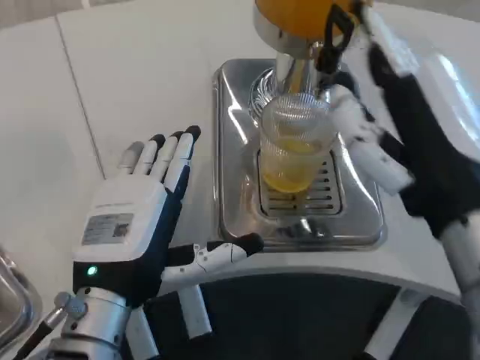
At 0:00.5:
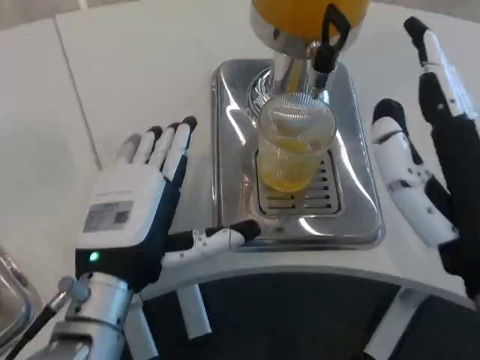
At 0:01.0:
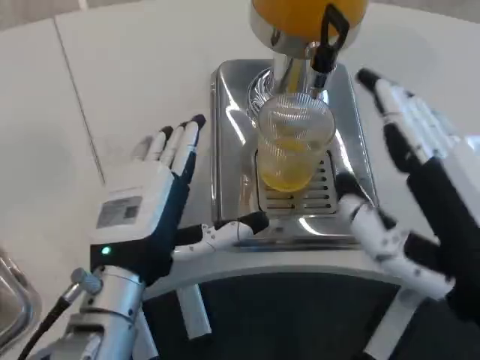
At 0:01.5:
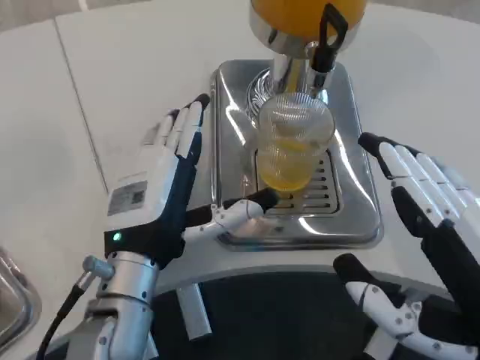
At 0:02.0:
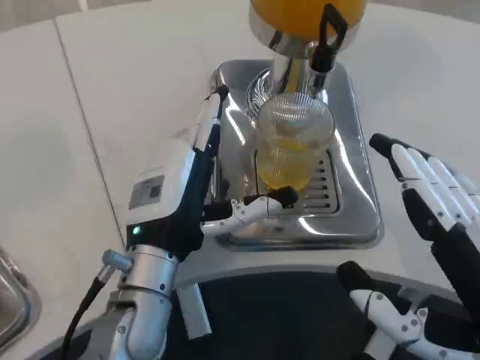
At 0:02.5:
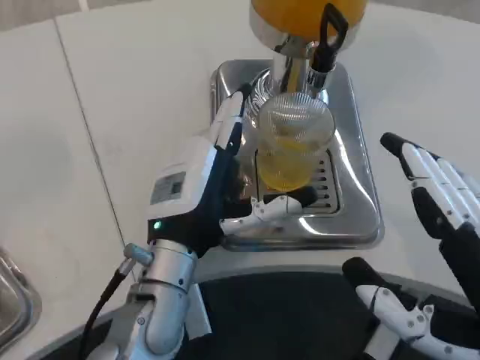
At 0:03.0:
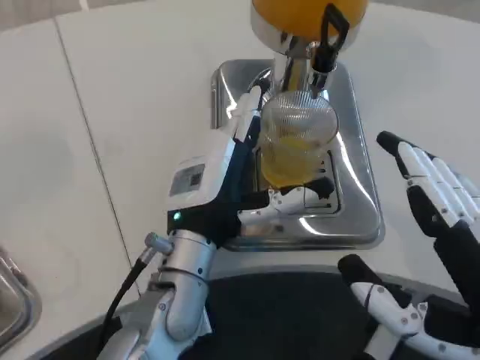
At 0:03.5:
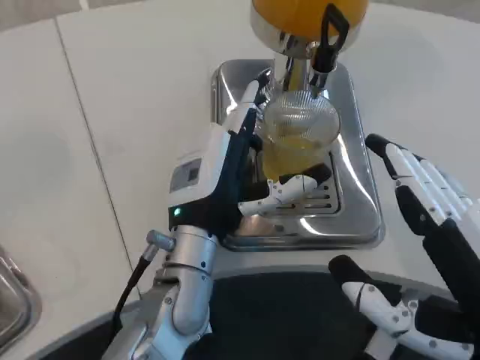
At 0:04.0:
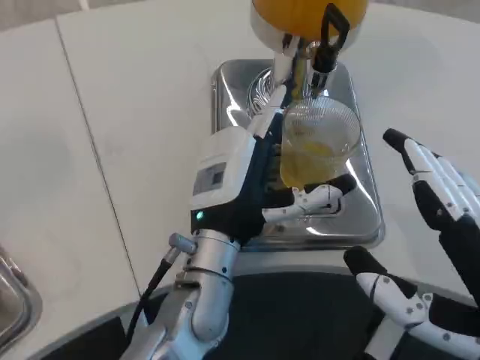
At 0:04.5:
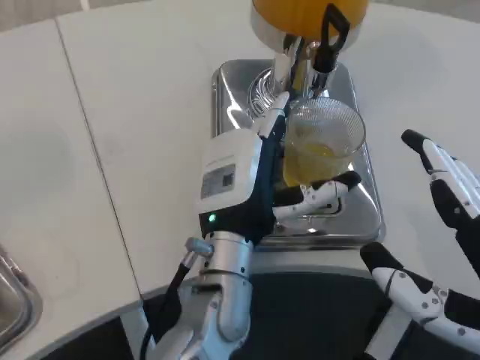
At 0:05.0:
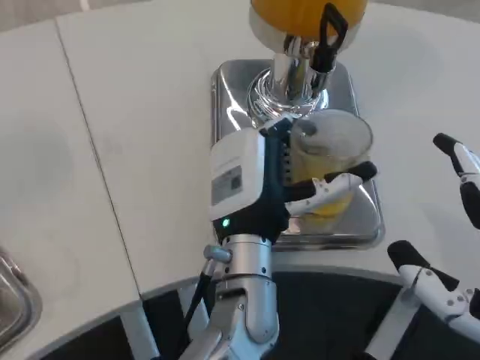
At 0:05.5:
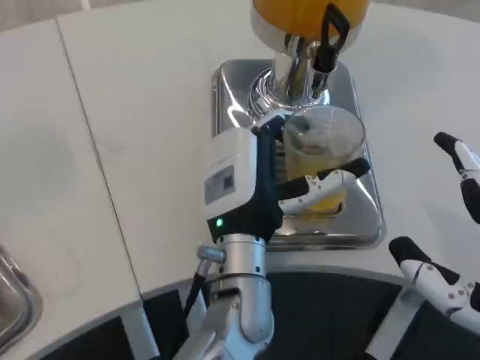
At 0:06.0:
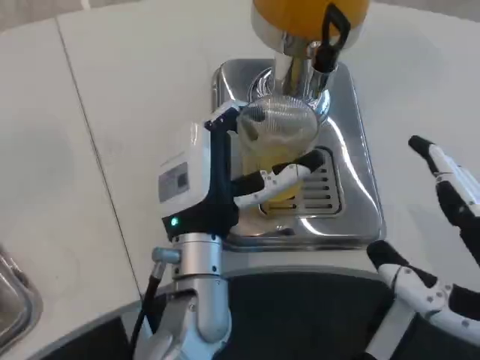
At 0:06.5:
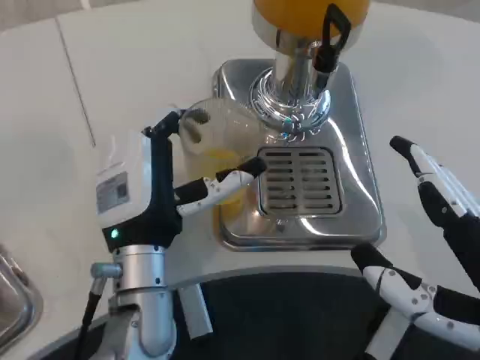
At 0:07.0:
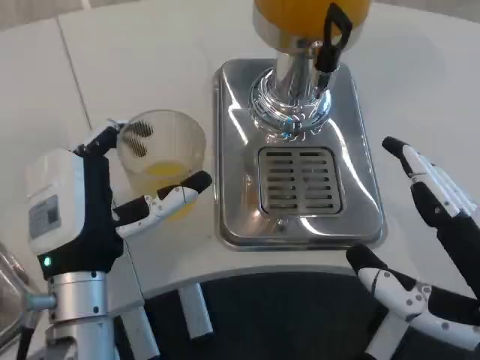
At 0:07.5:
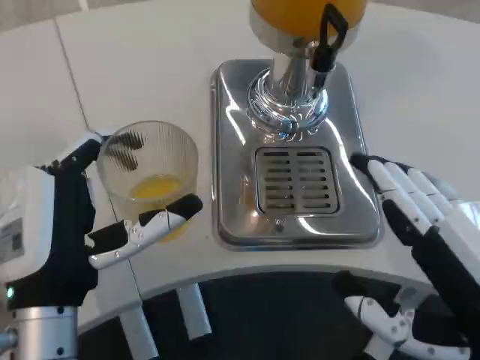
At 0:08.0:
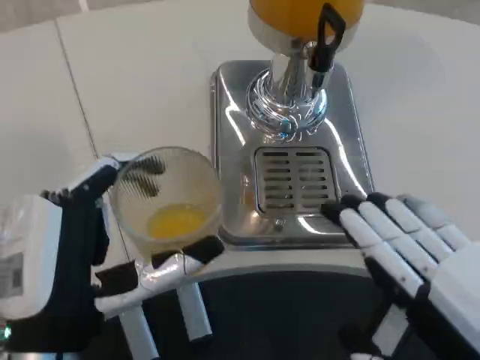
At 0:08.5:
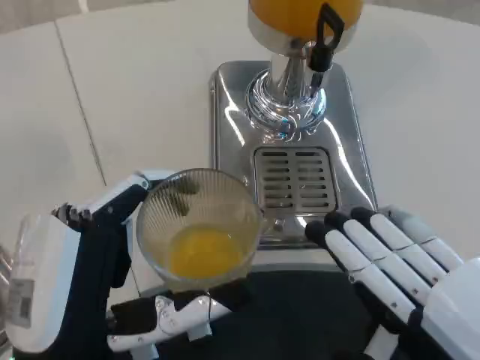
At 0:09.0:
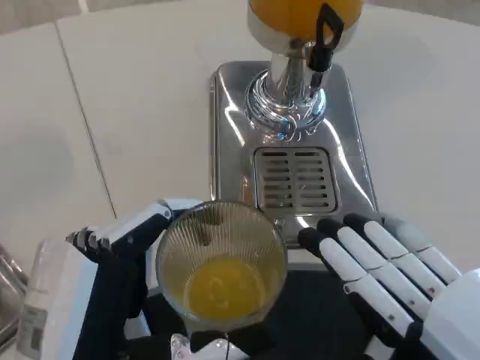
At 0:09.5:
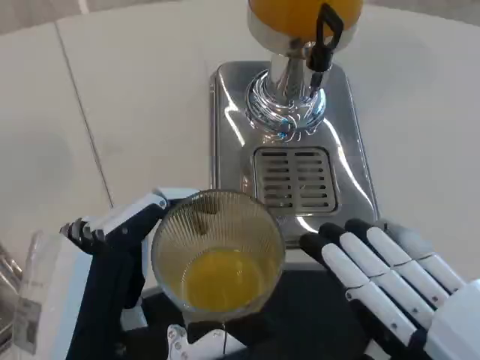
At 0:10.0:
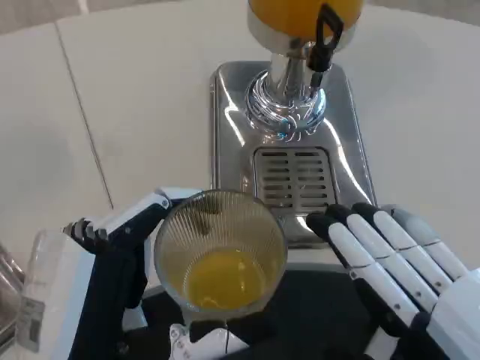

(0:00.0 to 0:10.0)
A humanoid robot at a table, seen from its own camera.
Task of the whole recording: Grasp the cup under the faucet to collect the drink, then remove the cup.
0:00.0 - 0:02.0: The left hand travels forward by some 5 cm. Meanwhile the right hand heads backward, covering roughly 10 cm.
0:02.0 - 0:04.0: The left hand shifts roughly 5 cm to the right.
0:06.0 - 0:08.0: The left hand is displaced backward and to the left by roughly 15 cm.

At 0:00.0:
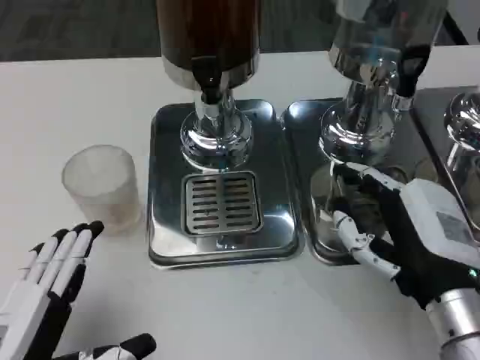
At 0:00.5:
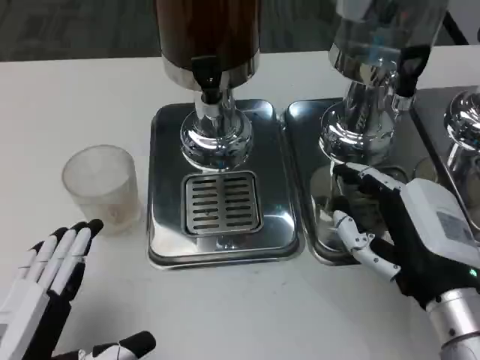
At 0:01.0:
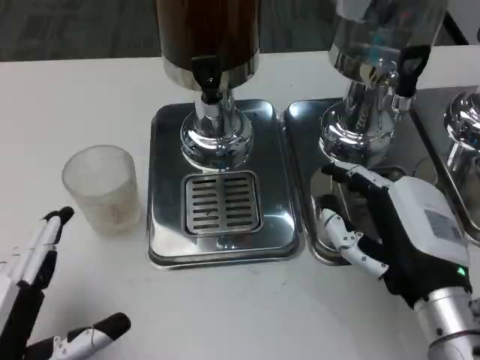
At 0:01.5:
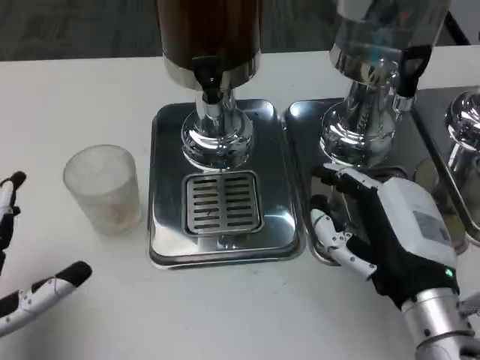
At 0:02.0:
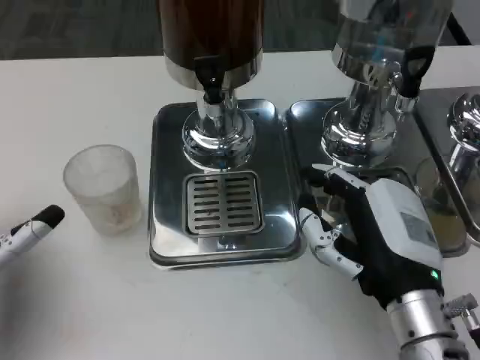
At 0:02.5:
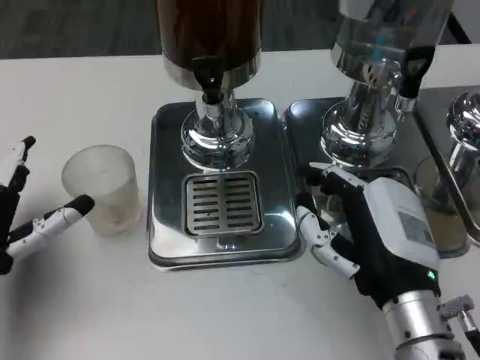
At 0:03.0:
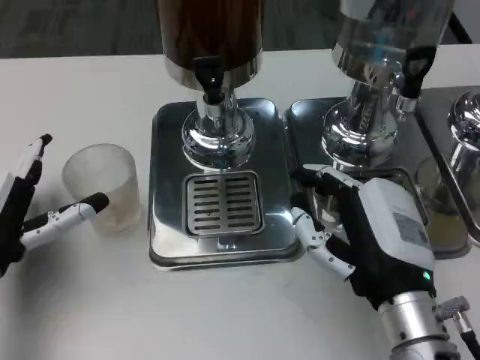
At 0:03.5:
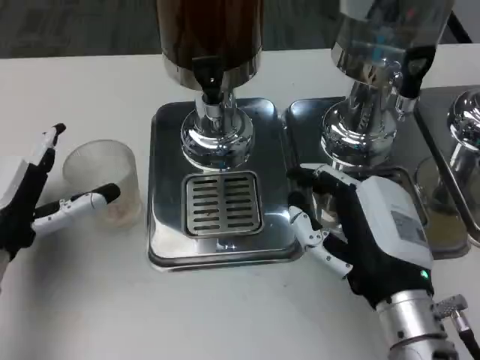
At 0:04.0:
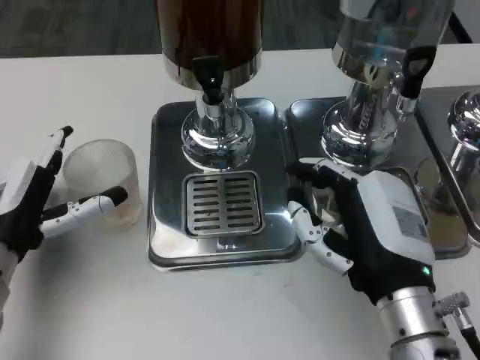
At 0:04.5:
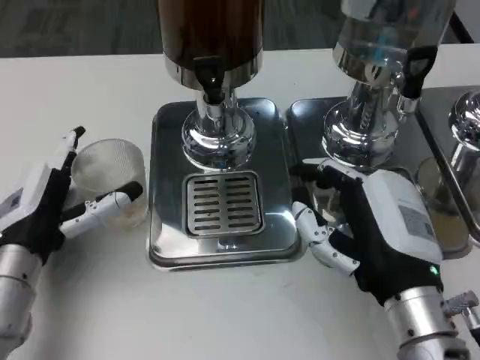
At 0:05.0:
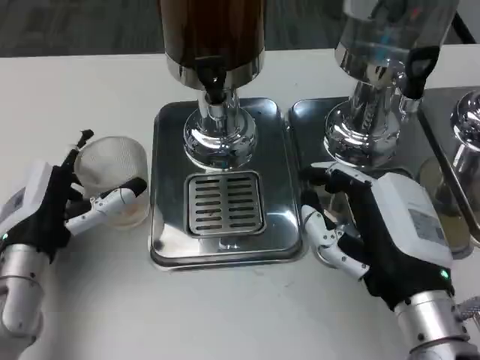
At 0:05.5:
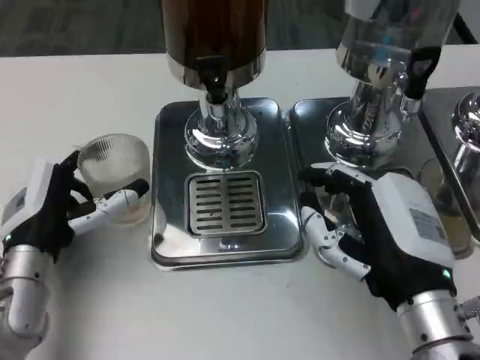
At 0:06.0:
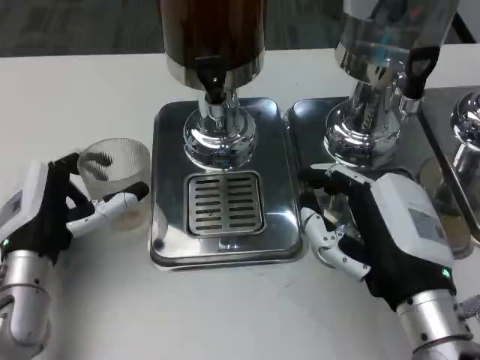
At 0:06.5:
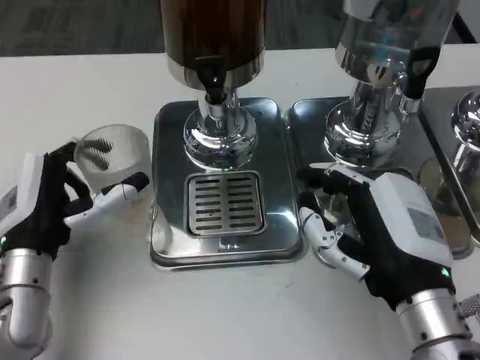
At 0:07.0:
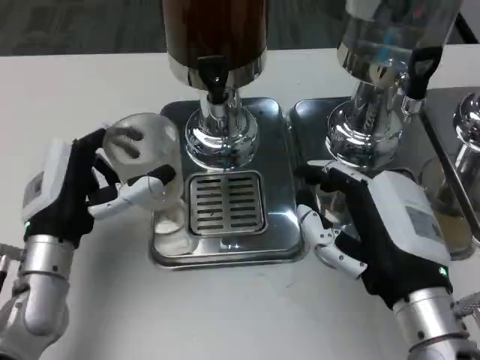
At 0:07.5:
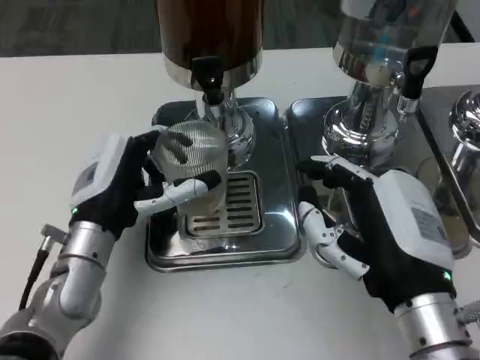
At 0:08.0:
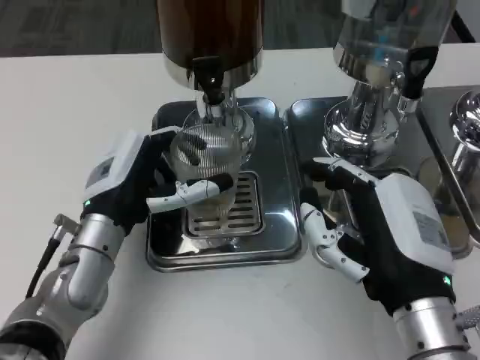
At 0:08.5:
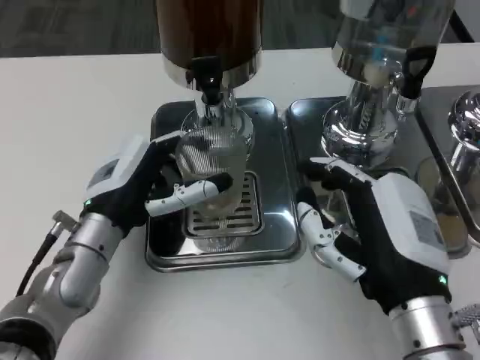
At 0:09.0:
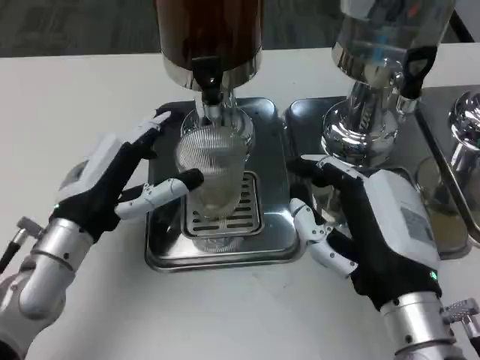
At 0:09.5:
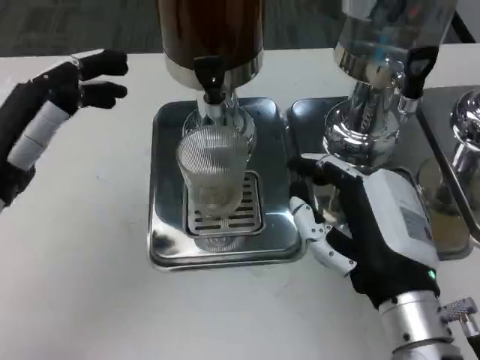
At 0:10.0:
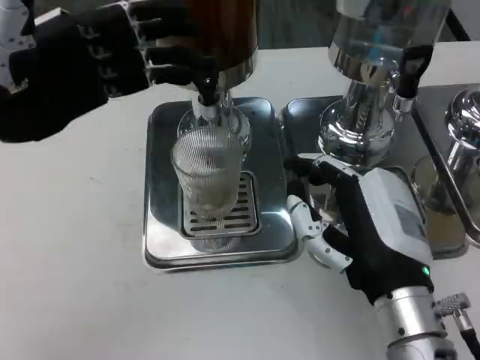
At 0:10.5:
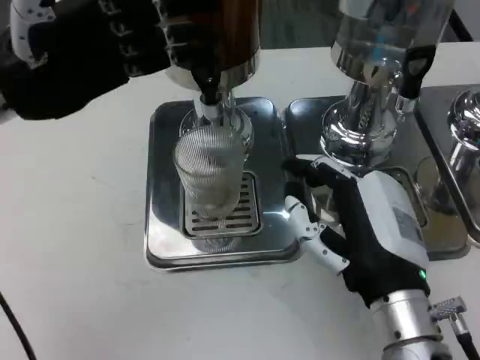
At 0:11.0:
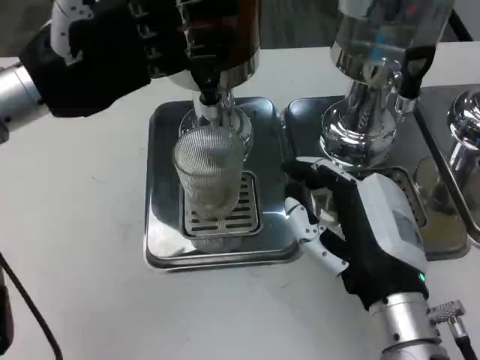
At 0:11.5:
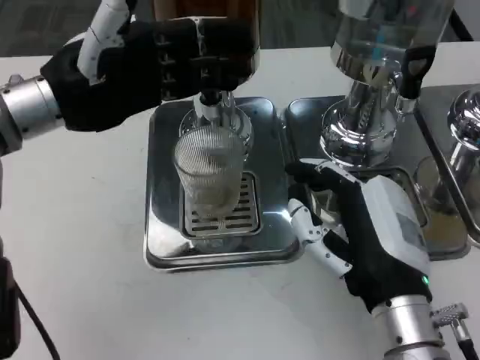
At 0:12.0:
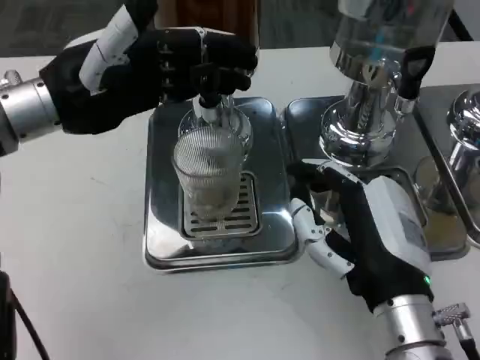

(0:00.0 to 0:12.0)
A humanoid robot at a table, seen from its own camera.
Task of the whole recording: Grasp the cup under the faucet to collect the drink, then remove the cup.
0:00.0 - 0:02.0: The left hand heads forward and to the left, covering some 10 cm.
0:02.0 - 0:04.0: The left hand goes roughly 5 cm forward.
0:06.0 - 0:08.0: The left hand moves to the right, some 5 cm.
0:08.0 - 0:10.0: The left hand heads upward and to the left, covering some 20 cm.
0:10.0 - 0:12.0: The left hand moves approximately 5 cm.

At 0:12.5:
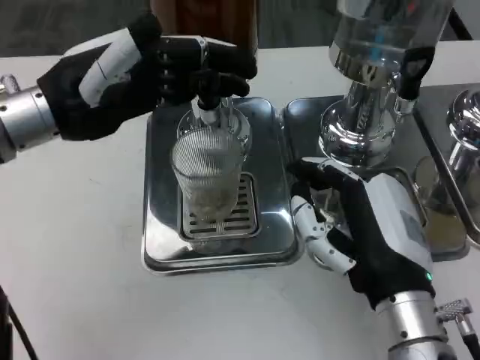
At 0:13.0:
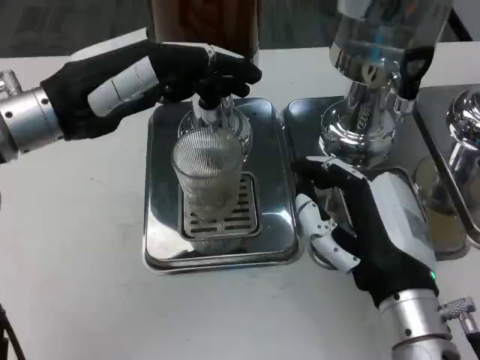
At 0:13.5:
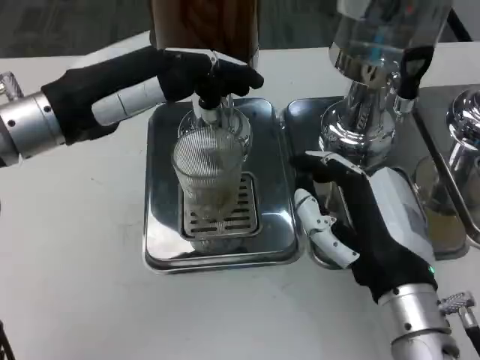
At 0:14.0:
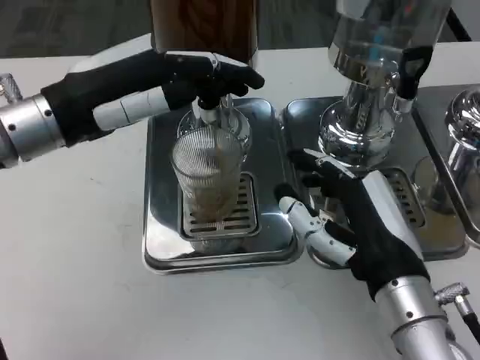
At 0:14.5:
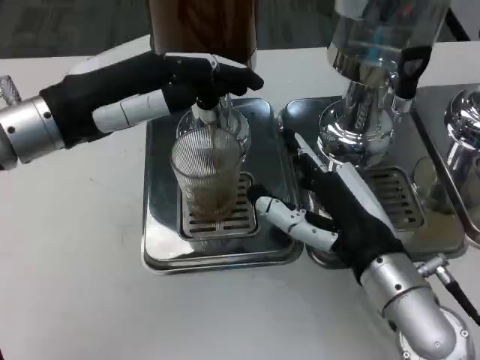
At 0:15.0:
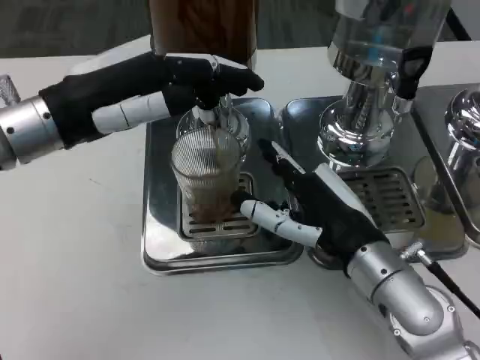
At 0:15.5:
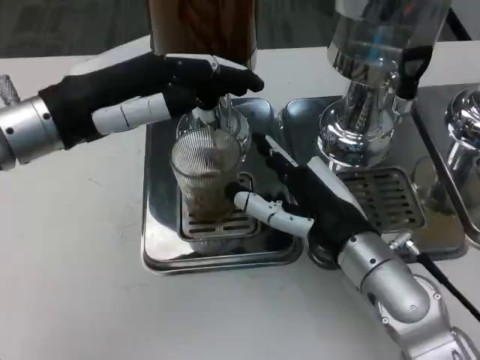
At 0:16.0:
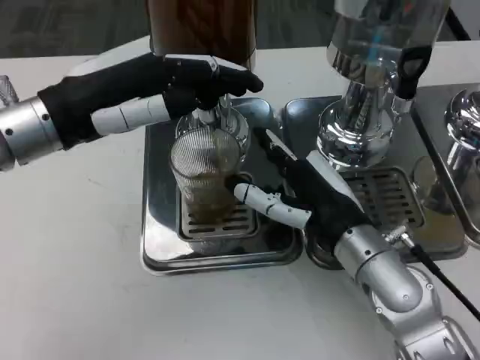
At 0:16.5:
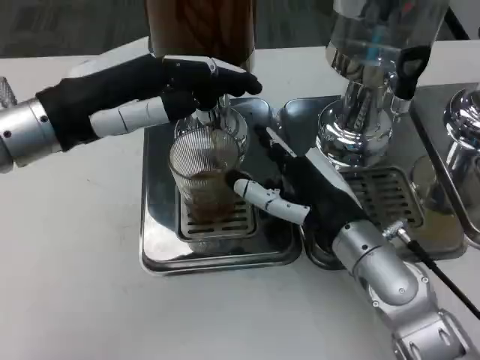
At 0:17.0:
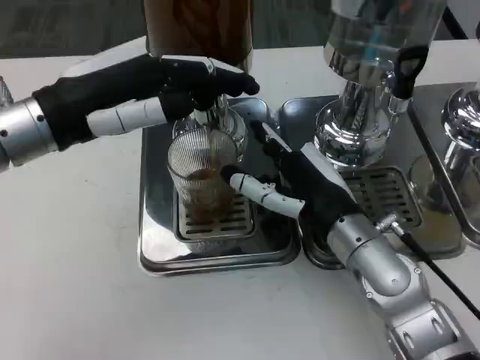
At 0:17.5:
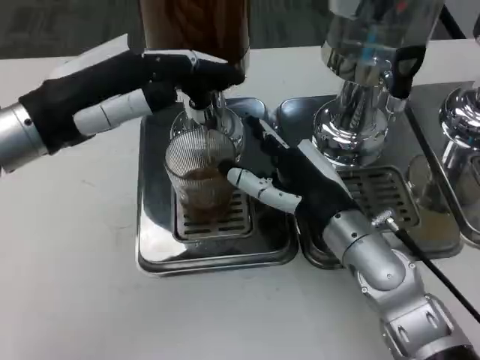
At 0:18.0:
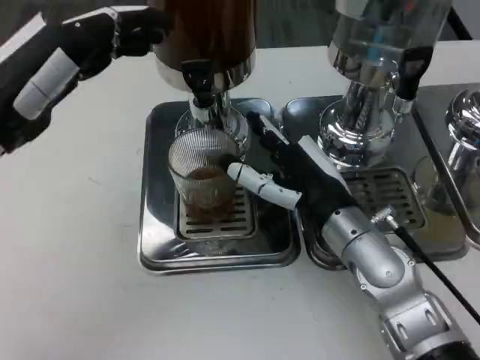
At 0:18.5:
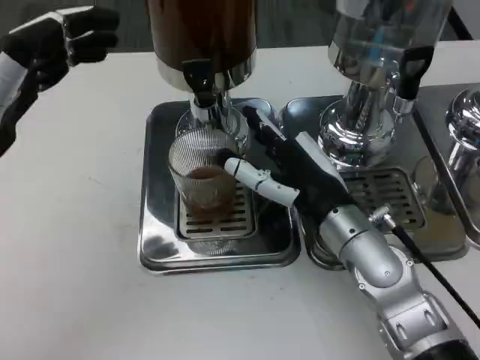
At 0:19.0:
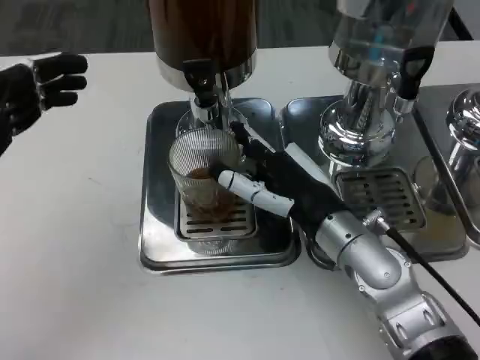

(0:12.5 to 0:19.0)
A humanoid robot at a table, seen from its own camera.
Task of the whole recording: Grasp the cup under the faucet to collect the drink, then remove the cup.
0:14.5 - 0:17.0: The right hand moves forward, some 5 cm.
0:17.0 - 0:19.0: The left hand travels to the left, backward and downward by roughly 10 cm.
